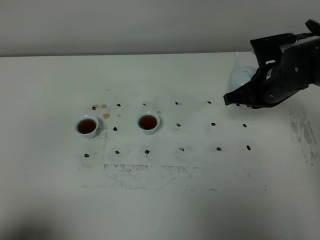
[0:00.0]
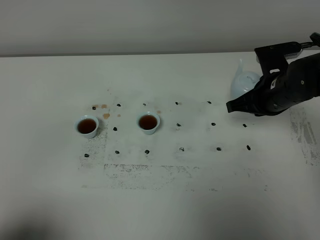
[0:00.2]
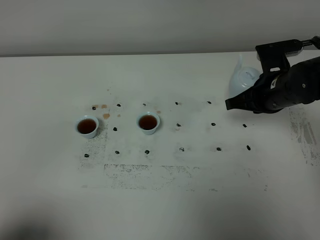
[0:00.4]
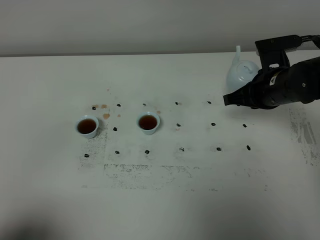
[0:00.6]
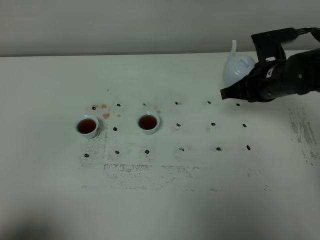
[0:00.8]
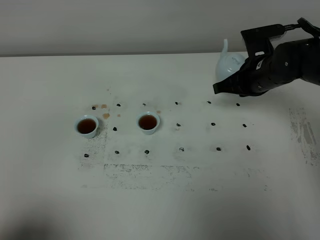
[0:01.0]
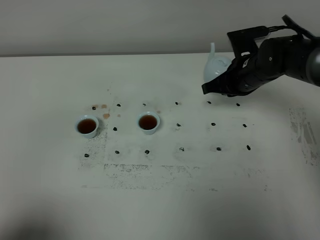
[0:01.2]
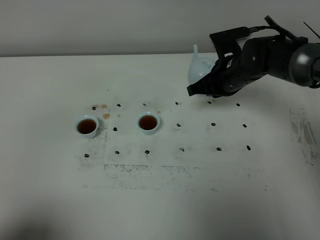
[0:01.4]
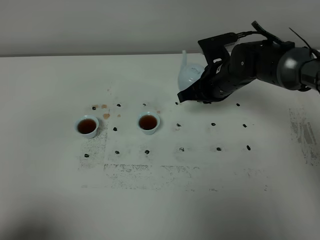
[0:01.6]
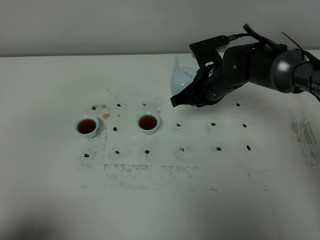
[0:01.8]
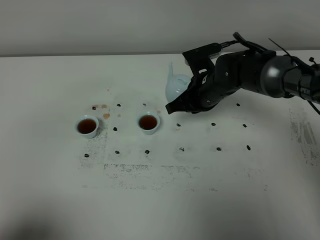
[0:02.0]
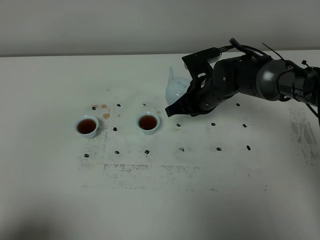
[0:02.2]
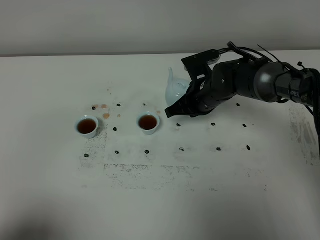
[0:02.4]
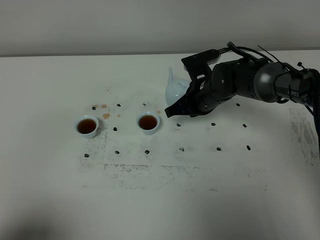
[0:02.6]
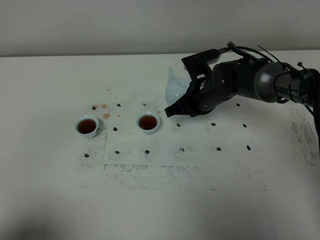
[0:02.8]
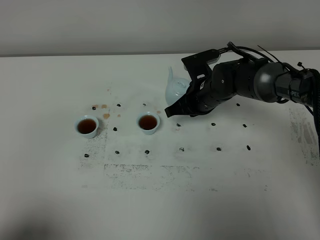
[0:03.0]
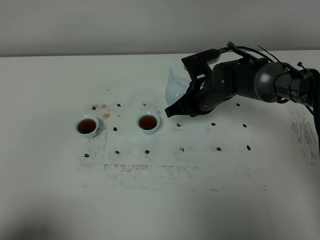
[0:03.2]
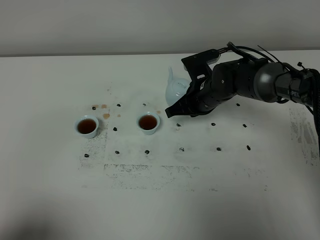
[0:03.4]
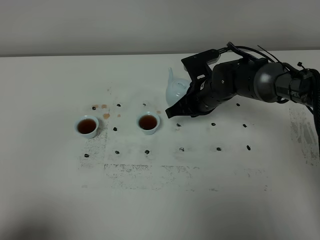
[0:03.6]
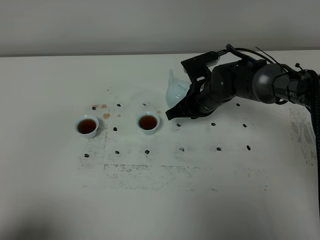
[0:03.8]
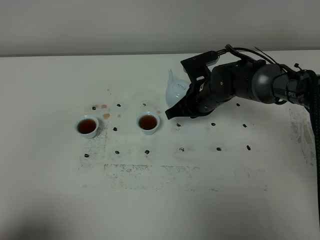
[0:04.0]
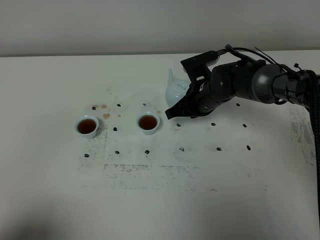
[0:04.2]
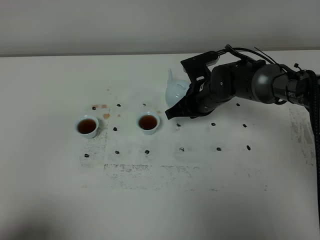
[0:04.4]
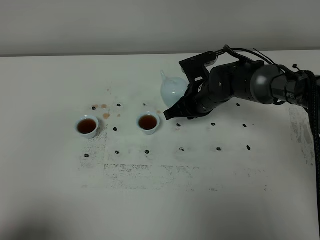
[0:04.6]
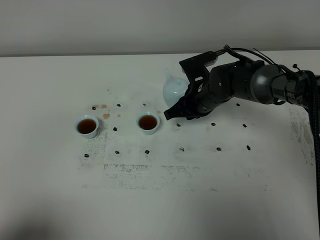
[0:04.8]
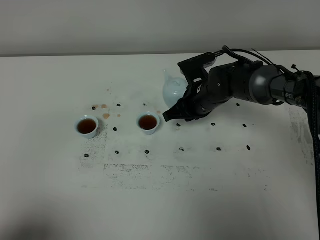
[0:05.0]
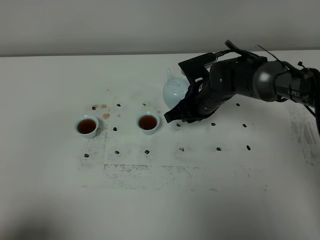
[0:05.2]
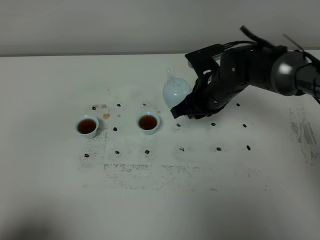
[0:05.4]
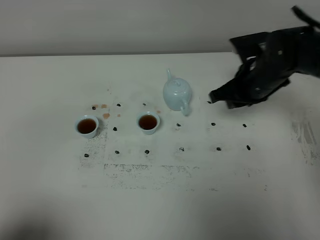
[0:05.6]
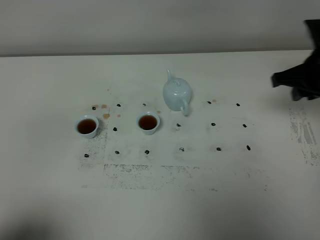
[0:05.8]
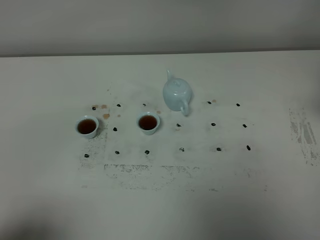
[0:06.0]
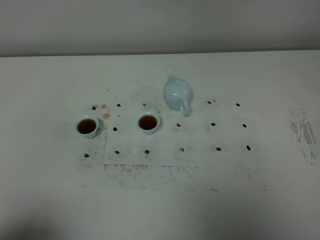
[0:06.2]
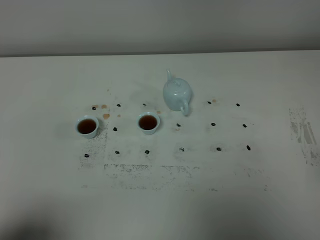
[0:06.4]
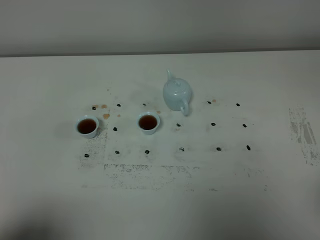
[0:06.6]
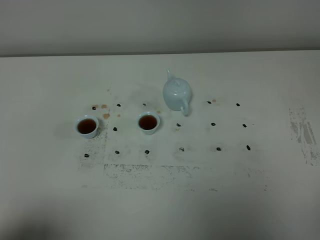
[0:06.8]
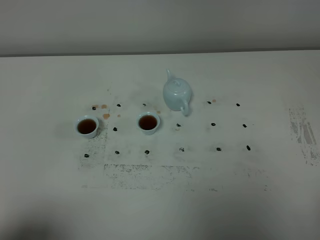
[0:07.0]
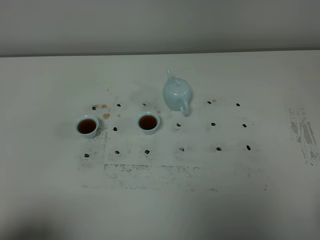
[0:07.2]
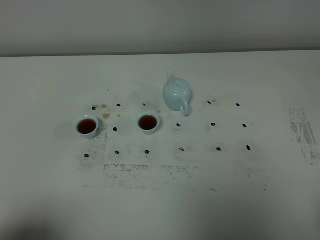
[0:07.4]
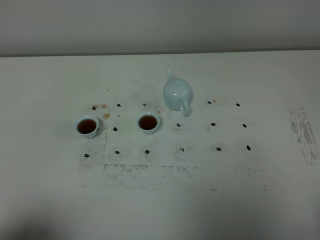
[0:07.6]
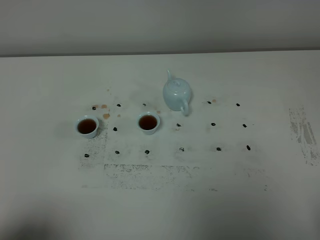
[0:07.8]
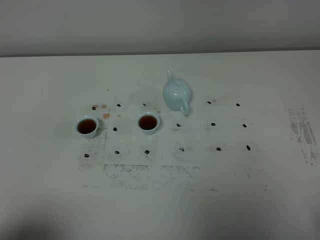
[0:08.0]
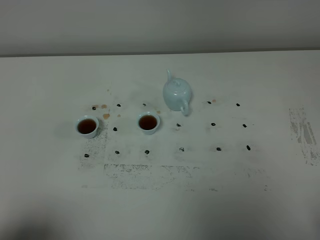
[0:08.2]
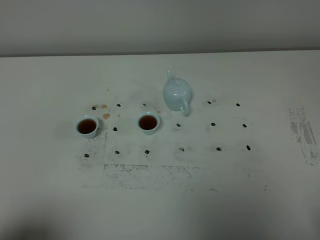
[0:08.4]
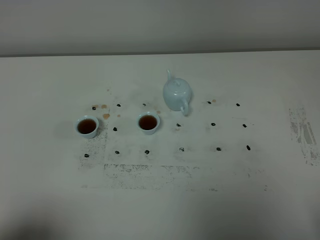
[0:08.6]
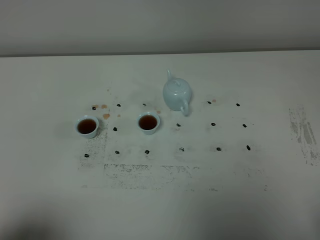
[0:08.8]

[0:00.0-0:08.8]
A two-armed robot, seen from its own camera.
Task of the whole recording: grasp the blue porcelain teapot and pour the tea into the two blue porcelain teacups one by one, put the blue porcelain teapot back in its original place.
0:00.0 to 0:01.4: The right gripper moves to the left and forward, about 10 cm.
0:01.4 to 0:03.0: The right gripper changes place by approximately 5 cm.
0:03.0 to 0:04.4: Neither gripper changes place.
0:04.4 to 0:05.8: The right gripper travels to the right, upward and backward by about 25 cm, and opens up.
0:05.8 to 0:07.4: The right gripper heads backward, covering some 35 cm.
